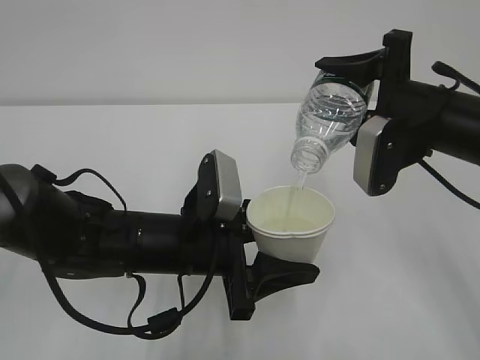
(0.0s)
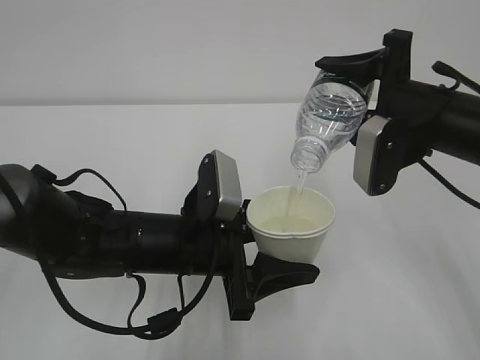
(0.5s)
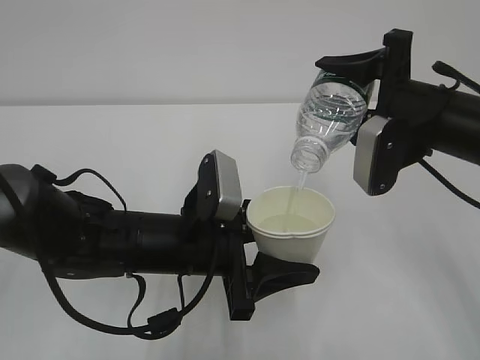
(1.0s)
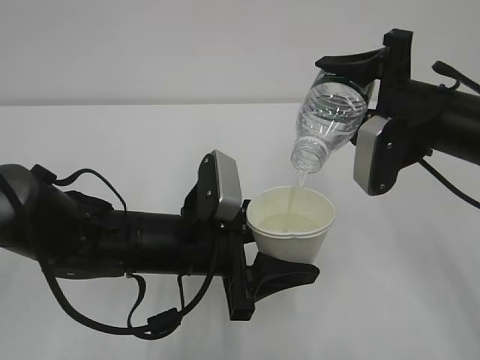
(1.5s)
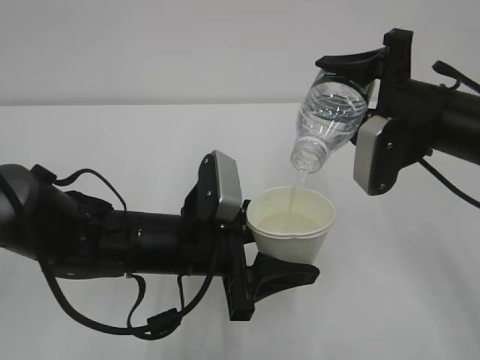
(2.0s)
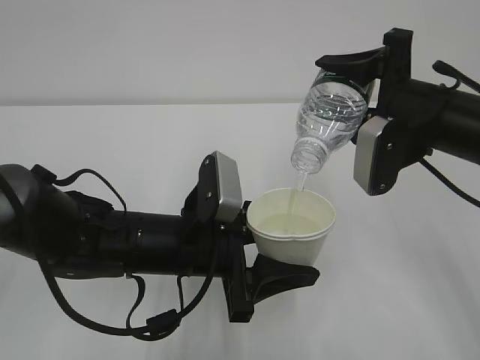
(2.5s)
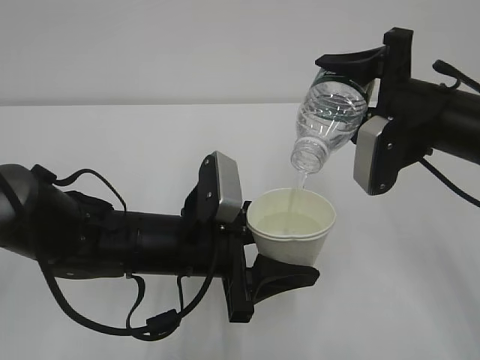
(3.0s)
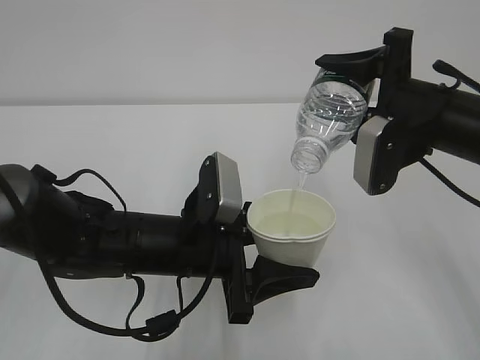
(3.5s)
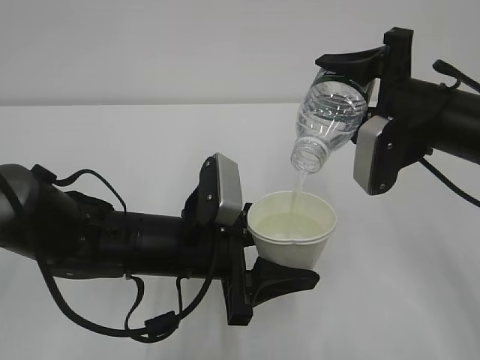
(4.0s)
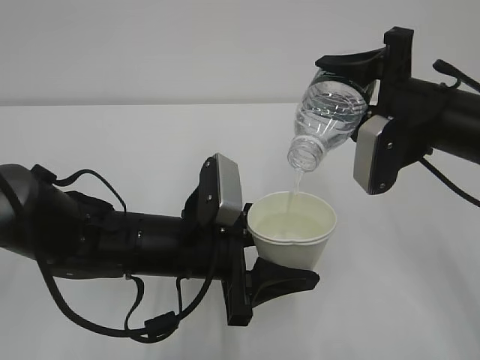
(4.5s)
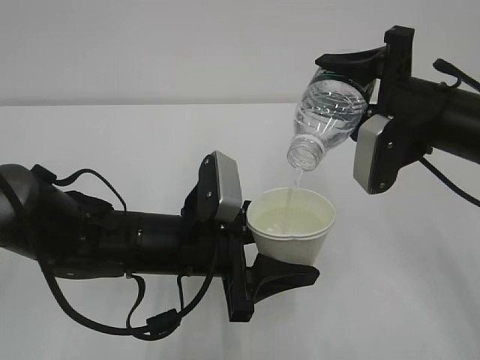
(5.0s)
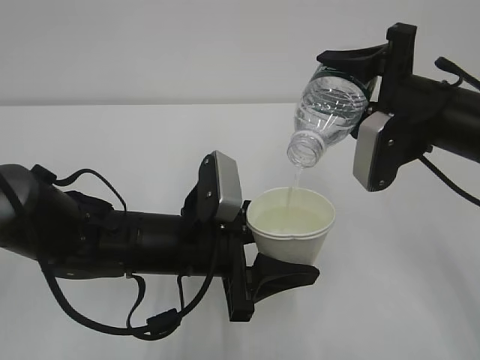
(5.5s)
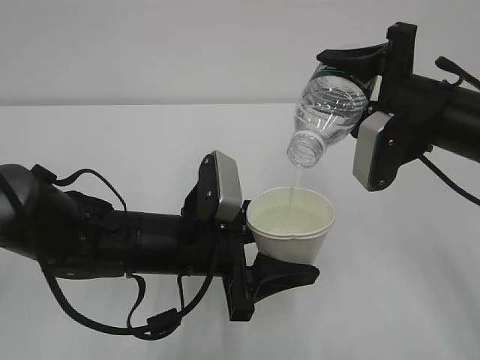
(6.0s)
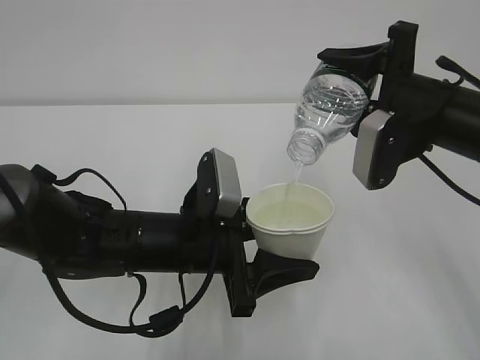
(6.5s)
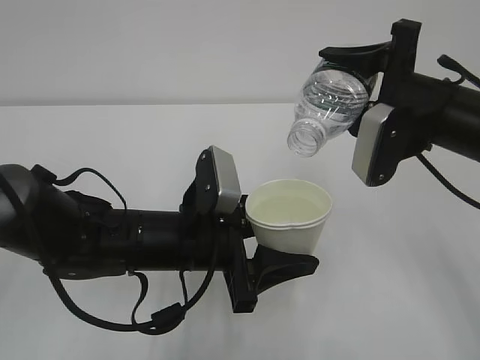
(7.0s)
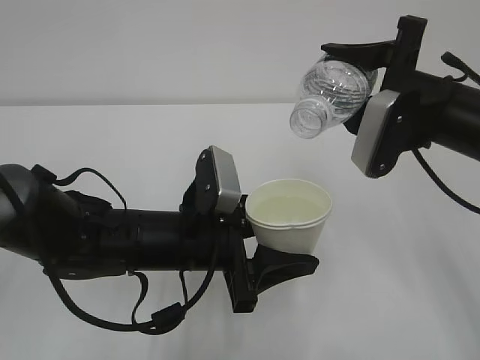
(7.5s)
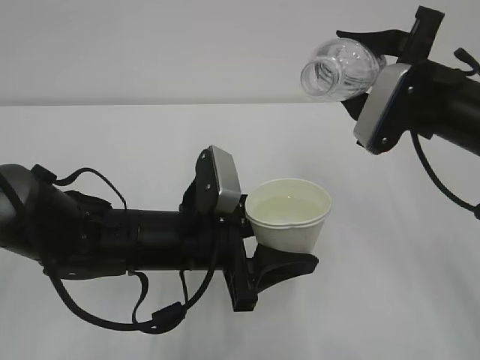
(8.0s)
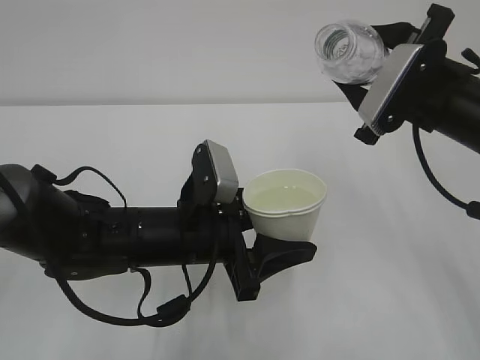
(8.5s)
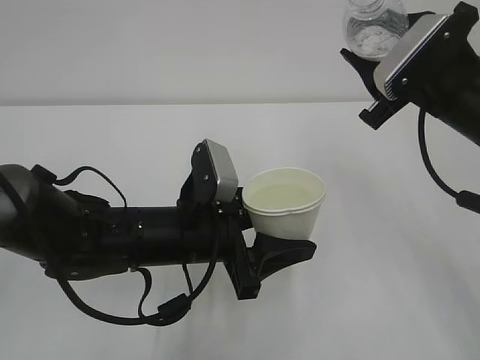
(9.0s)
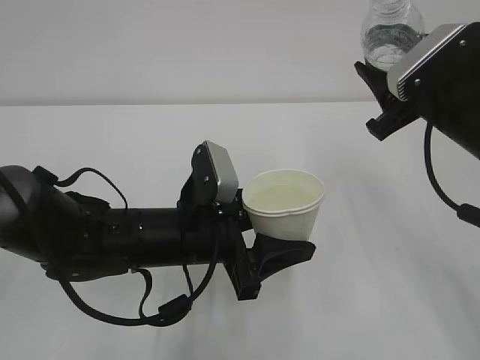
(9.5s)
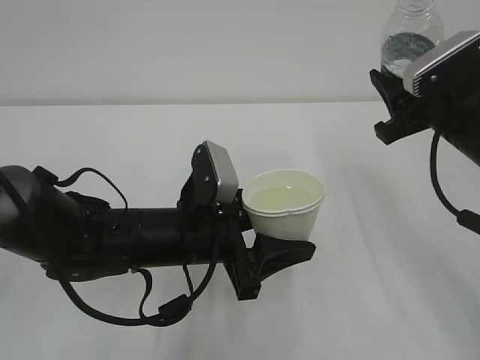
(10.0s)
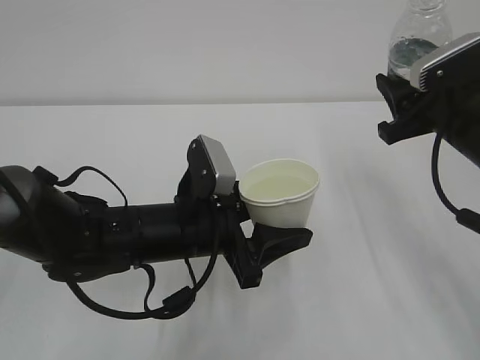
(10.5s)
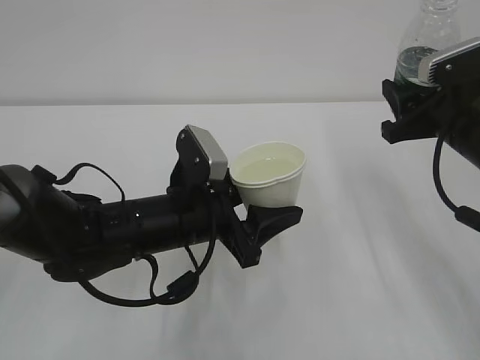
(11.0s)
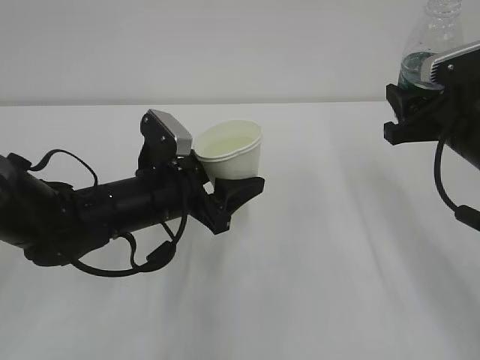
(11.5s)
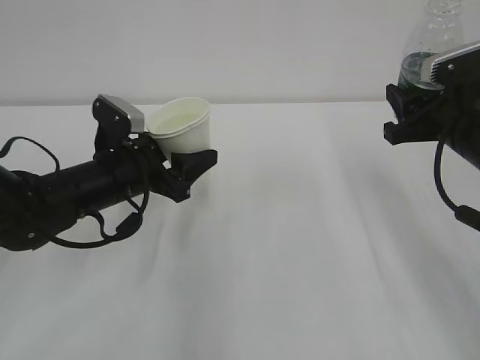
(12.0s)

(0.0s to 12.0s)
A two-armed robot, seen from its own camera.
0.0s - 6.0s: Neither gripper changes place.
10.0s - 12.0s: The left gripper travels to the left and forward by approximately 10 cm.

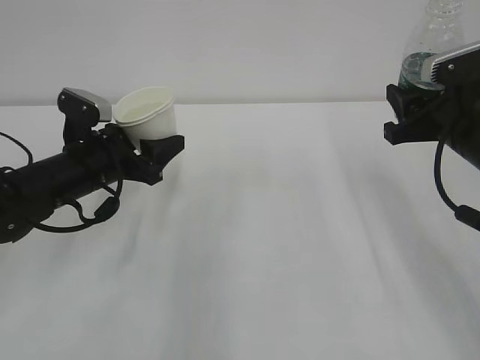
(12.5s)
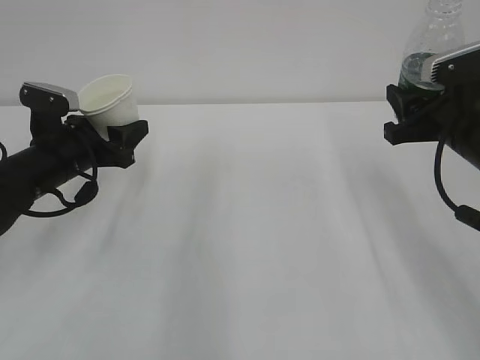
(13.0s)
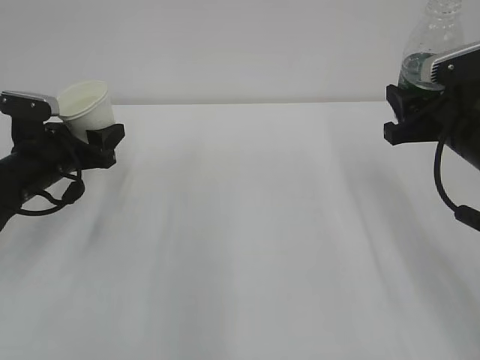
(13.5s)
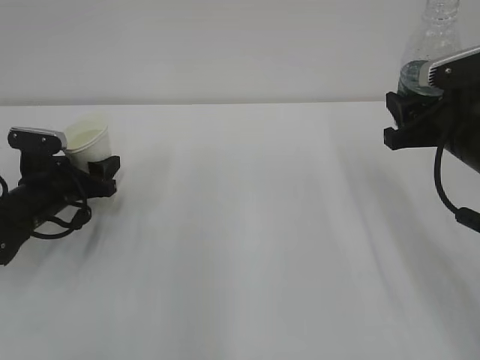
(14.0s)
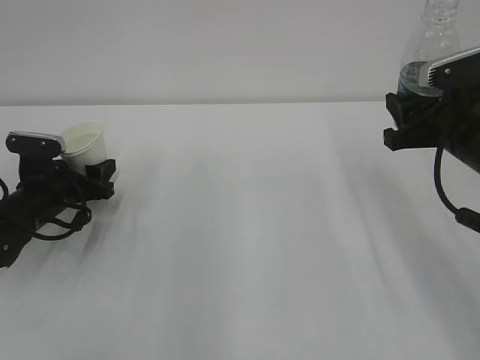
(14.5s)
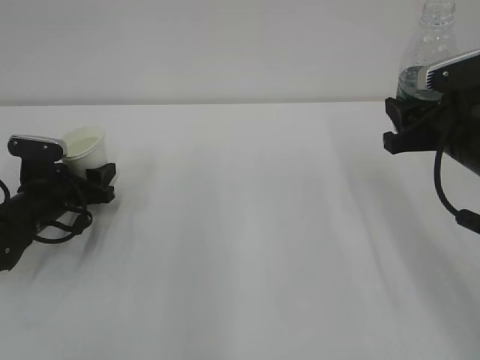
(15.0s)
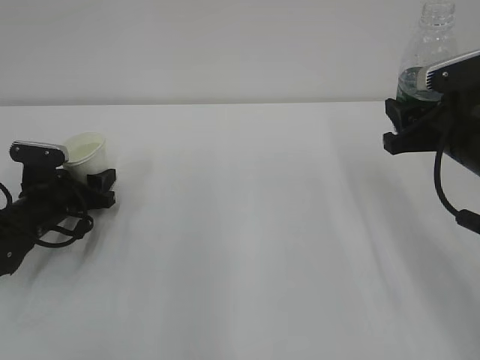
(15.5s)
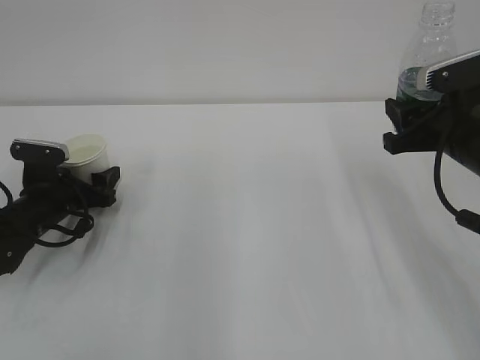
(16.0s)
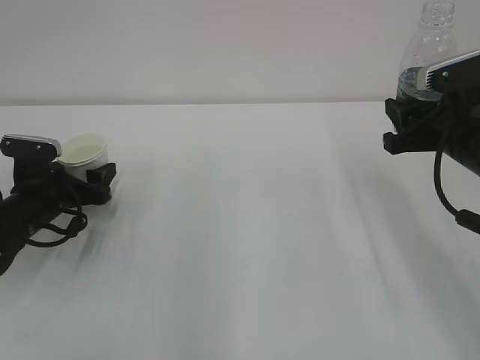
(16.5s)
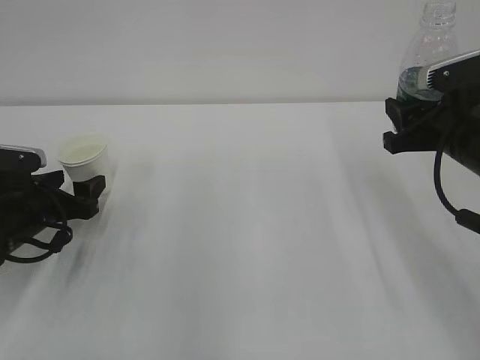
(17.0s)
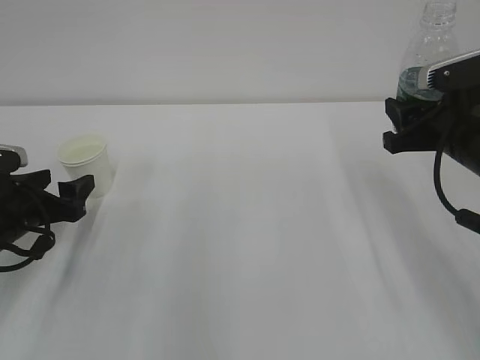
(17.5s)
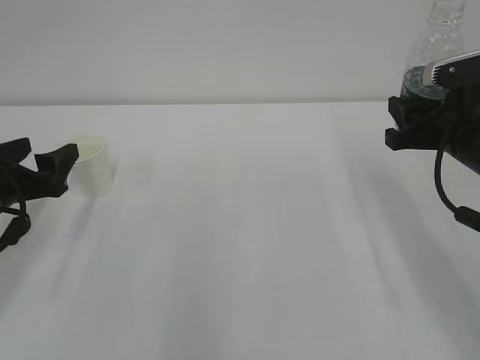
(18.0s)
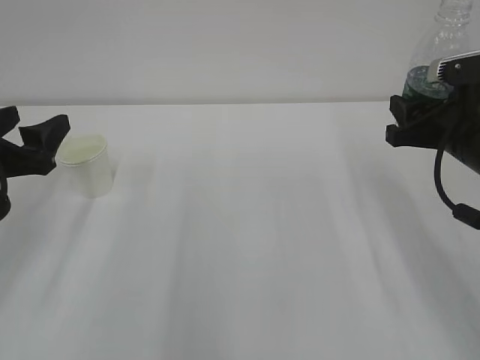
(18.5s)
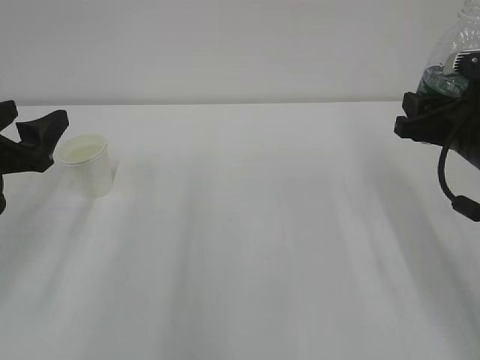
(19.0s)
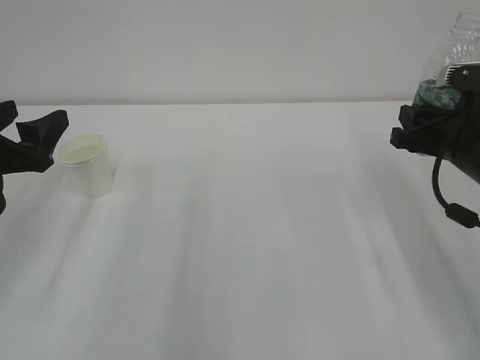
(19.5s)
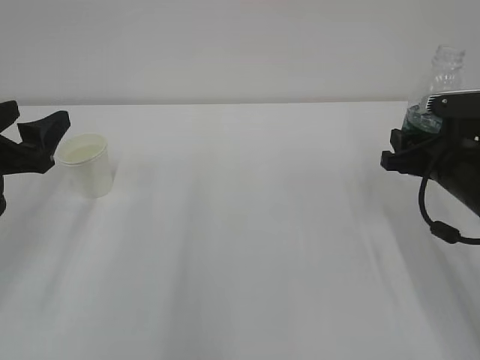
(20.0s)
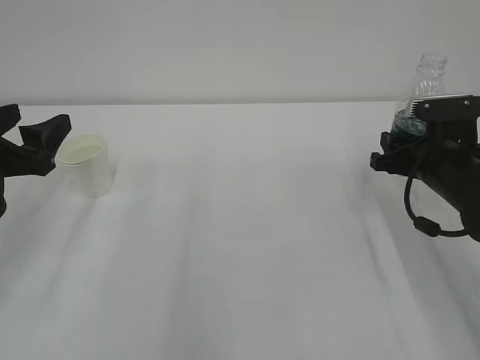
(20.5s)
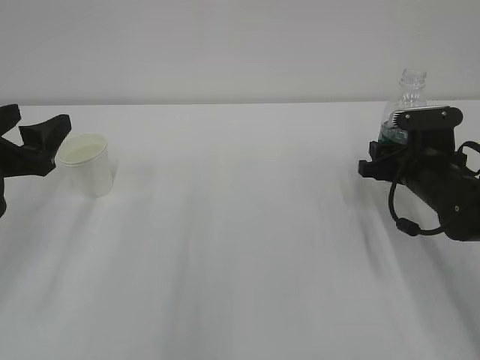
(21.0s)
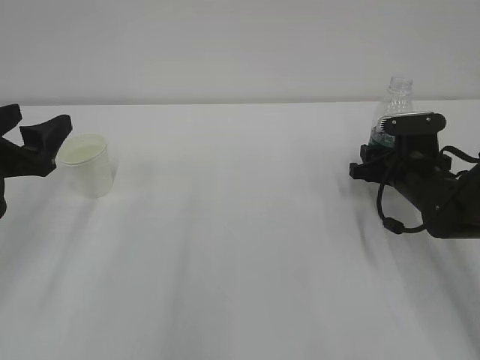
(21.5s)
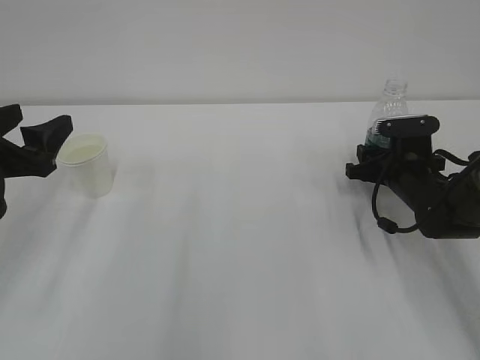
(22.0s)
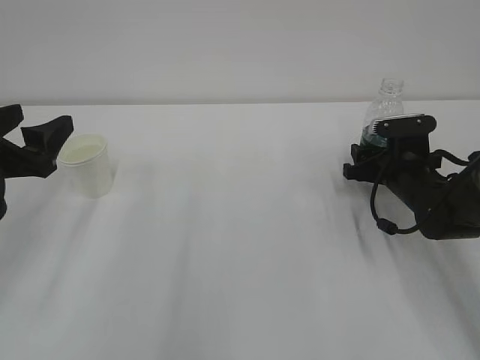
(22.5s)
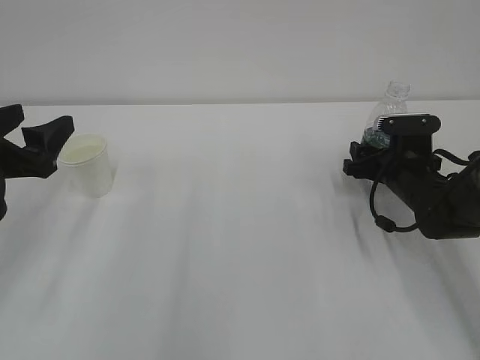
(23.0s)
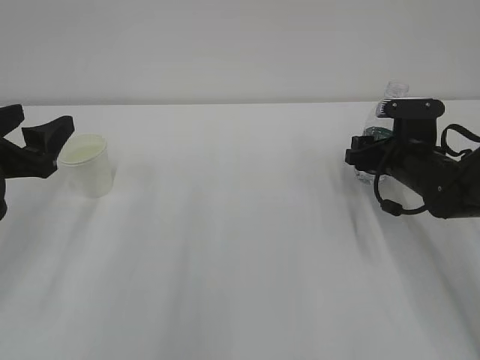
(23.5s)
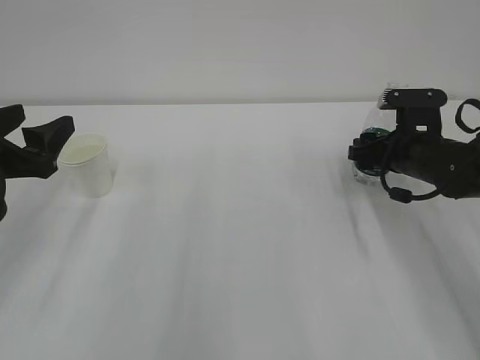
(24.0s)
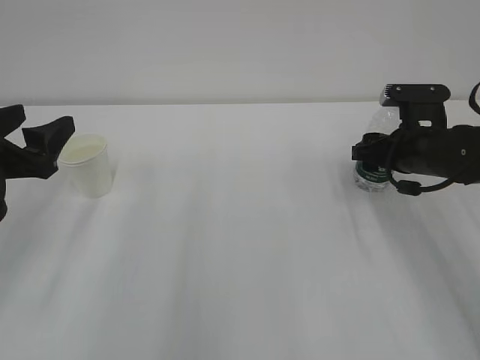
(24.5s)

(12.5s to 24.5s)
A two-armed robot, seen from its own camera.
12.5s - 14.5s: The left gripper travels to the left and downward by about 10 cm.
14.5s - 16.5s: The left gripper opens up.
16.5s - 18.5s: The left gripper is displaced upward and backward by roughly 15 cm.
18.5s - 20.5s: The right gripper travels downward by roughly 5 cm.
20.5s - 22.5s: The right gripper heads downward and forward, covering some 10 cm.
22.5s - 24.5s: The right gripper moves upward, about 5 cm.

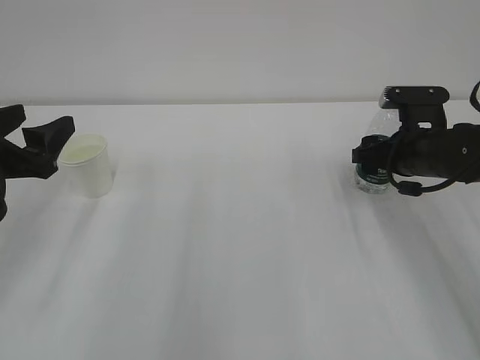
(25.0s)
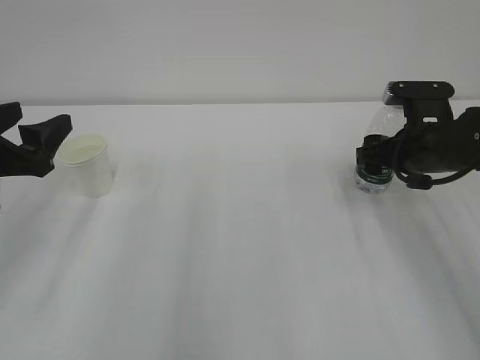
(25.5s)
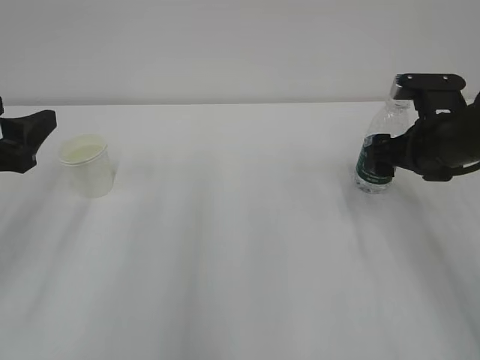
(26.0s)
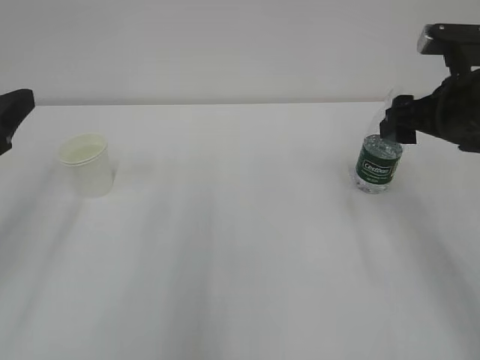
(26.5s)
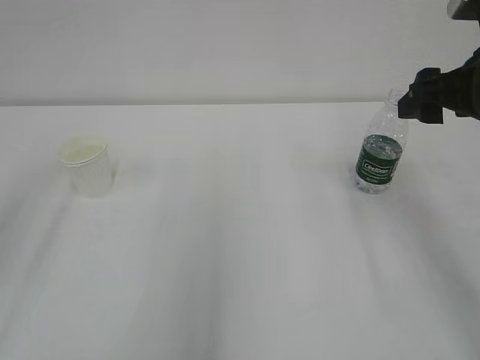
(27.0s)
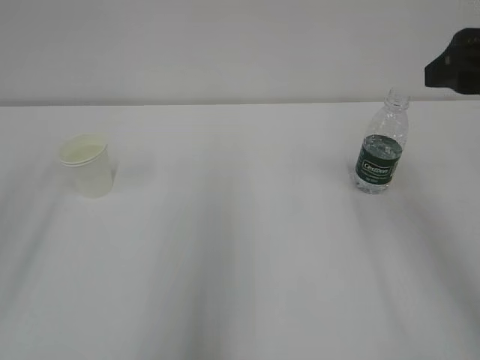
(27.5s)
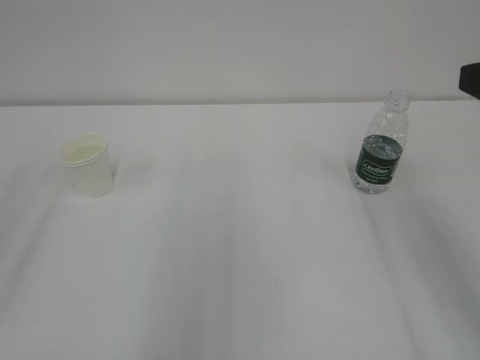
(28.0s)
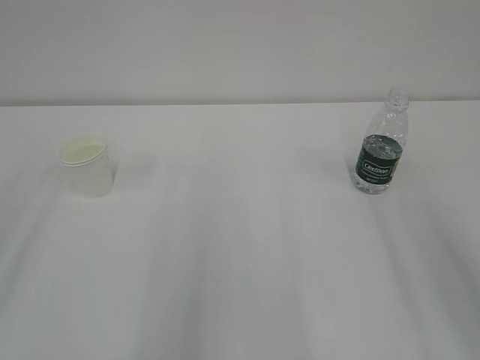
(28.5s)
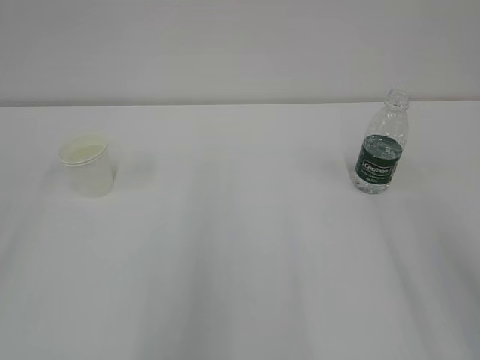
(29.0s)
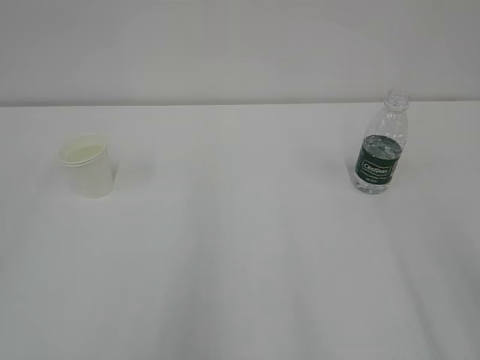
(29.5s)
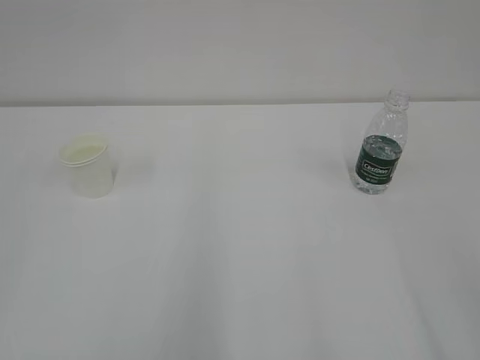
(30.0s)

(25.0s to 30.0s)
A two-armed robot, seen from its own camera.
25.0s - 27.5s: Both grippers travel together upward and backward, approximately 20 cm.
27.5s - 30.0s: The right gripper is displaced backward by roughly 25 cm.
